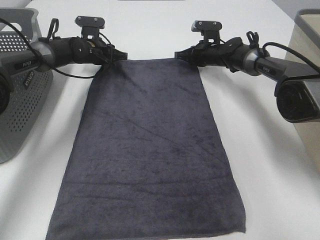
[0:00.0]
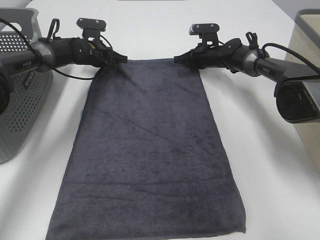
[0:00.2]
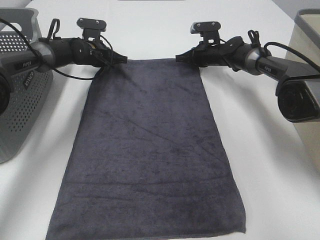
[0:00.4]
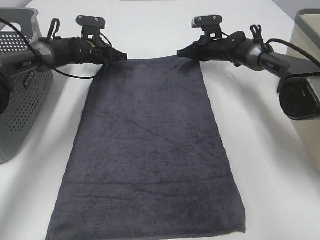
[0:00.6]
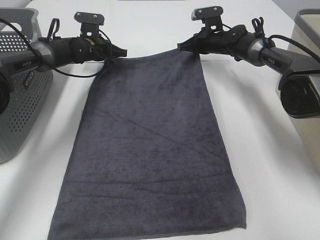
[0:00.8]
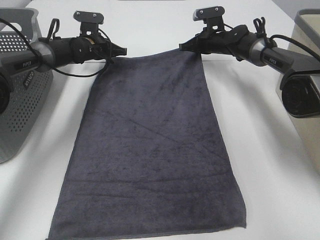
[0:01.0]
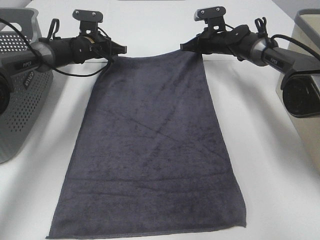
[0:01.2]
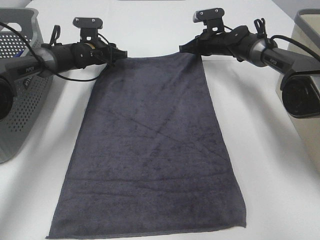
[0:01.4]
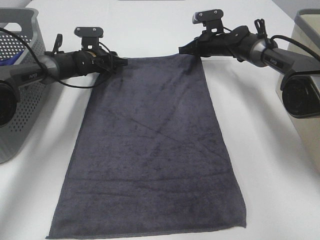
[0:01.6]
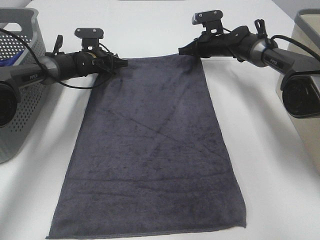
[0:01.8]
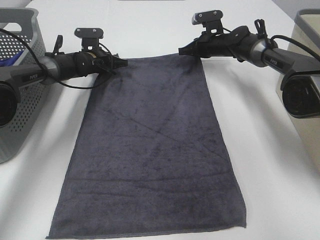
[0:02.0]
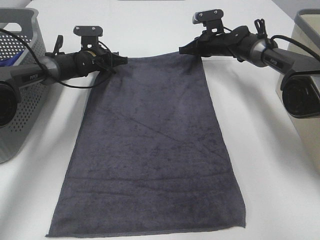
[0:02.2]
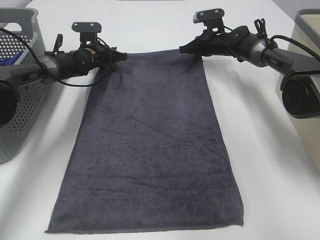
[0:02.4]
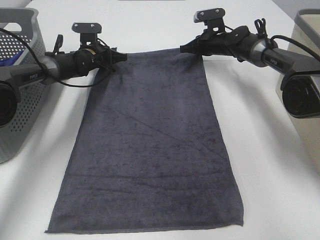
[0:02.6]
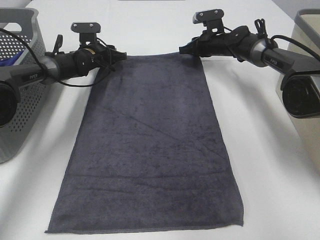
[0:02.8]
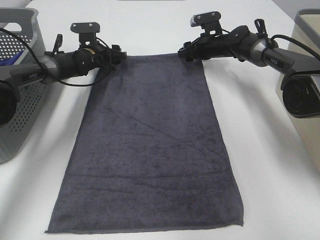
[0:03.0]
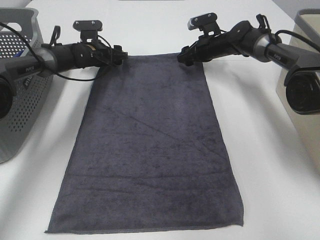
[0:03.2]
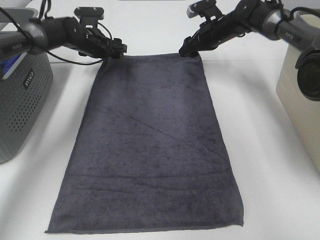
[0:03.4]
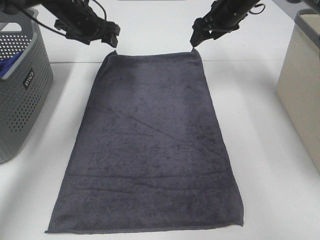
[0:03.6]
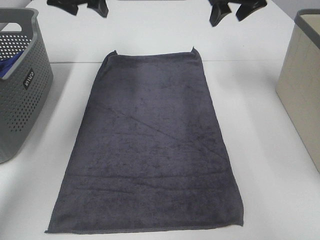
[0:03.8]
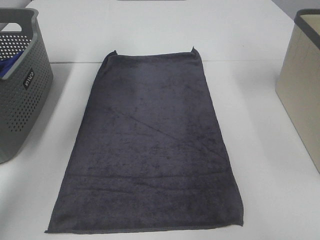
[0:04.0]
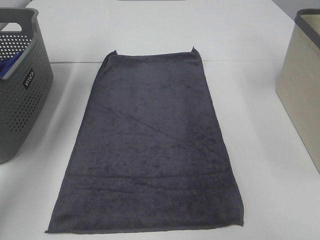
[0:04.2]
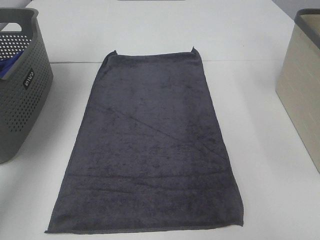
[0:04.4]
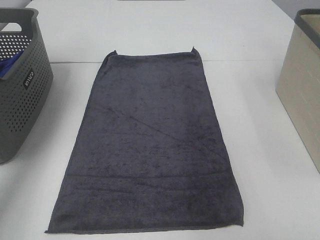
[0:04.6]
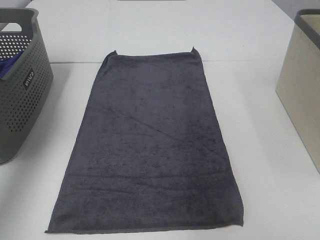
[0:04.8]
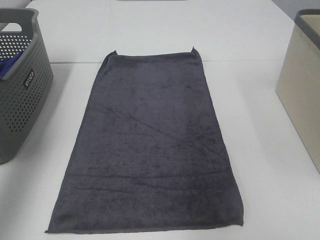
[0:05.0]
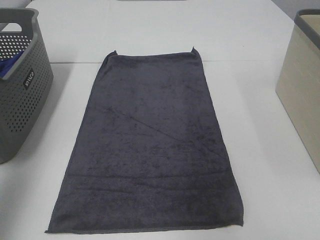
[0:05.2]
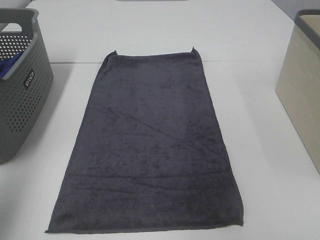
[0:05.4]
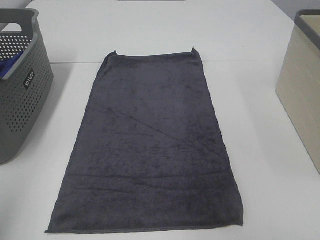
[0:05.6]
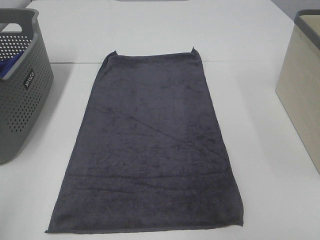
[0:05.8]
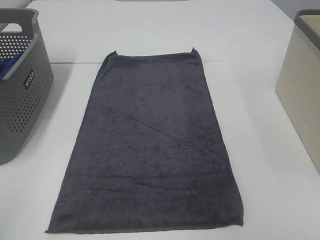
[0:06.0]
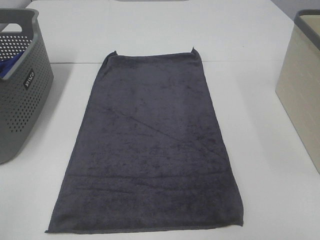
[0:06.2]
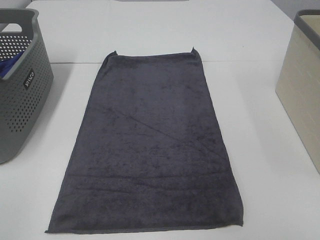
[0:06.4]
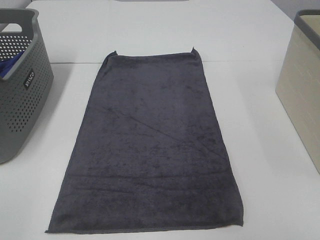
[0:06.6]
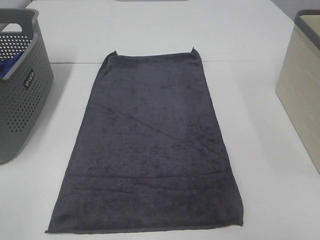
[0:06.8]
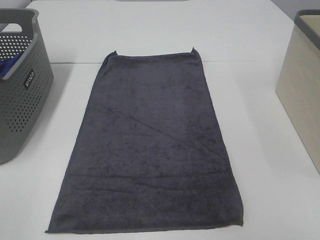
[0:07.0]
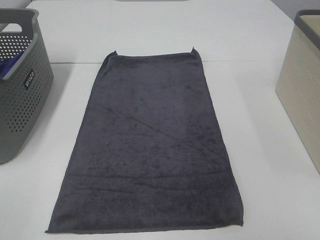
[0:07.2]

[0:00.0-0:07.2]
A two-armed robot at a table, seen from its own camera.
Task of the whole recording: Remove the towel and place it.
0:00.0 to 0:01.4: The grippers make only small movements.
0:01.4 to 0:02.8: The right gripper opens up. The left gripper closes, then reopens.
0:02.8 to 0:04.4: The two grippers go approximately 35 cm upward and backward. The right gripper opens up.
0:04.4 to 0:05.8: The left gripper moves backward, approximately 40 cm.

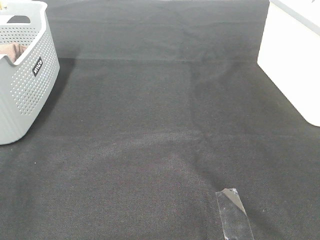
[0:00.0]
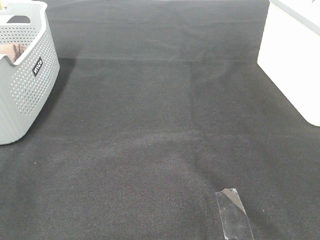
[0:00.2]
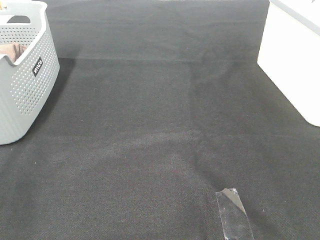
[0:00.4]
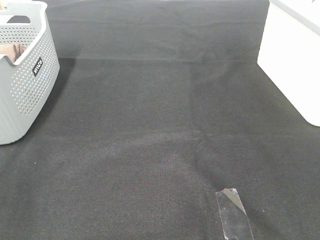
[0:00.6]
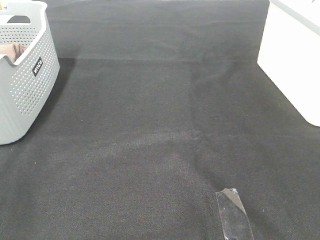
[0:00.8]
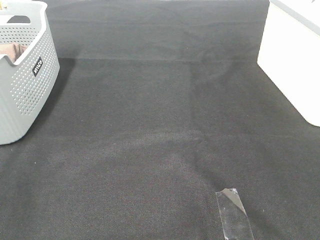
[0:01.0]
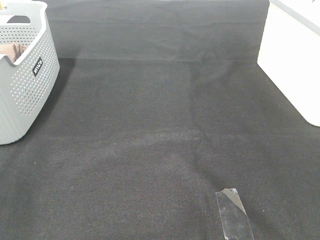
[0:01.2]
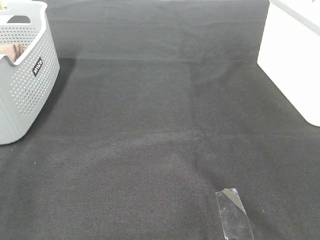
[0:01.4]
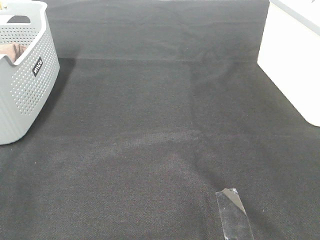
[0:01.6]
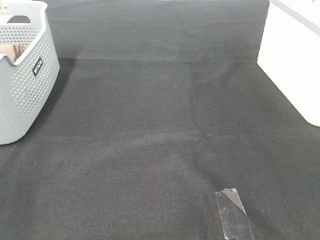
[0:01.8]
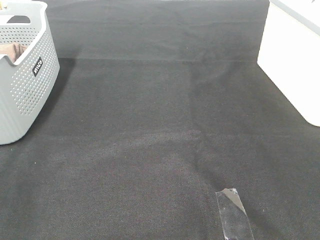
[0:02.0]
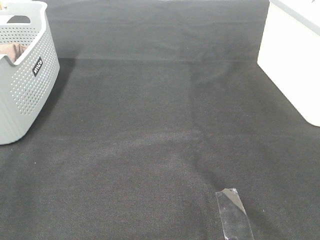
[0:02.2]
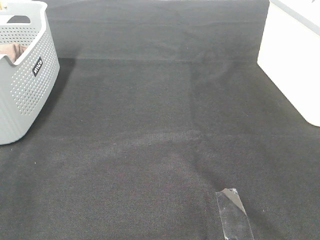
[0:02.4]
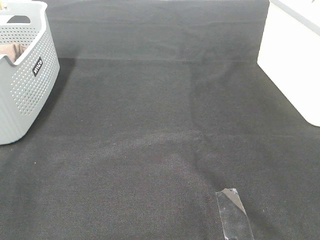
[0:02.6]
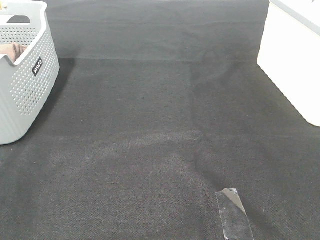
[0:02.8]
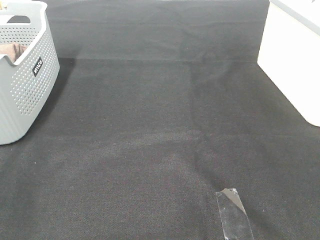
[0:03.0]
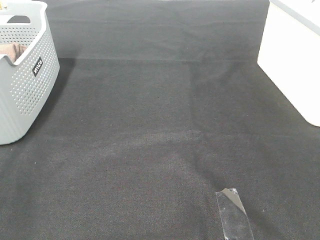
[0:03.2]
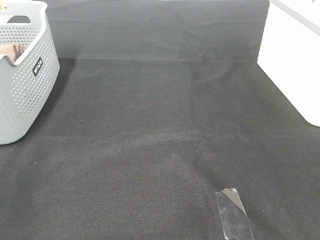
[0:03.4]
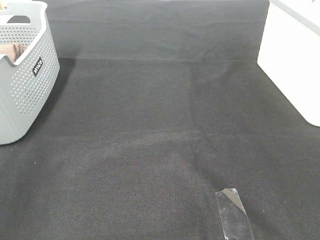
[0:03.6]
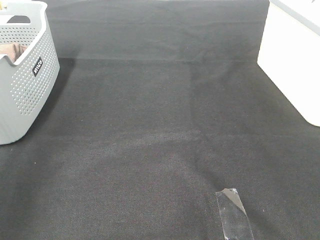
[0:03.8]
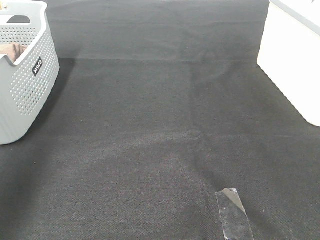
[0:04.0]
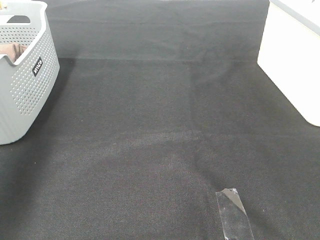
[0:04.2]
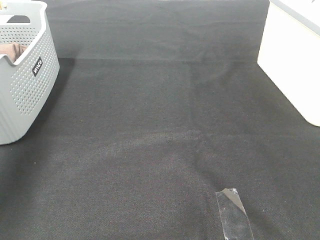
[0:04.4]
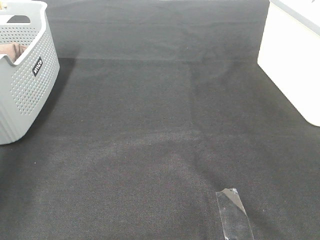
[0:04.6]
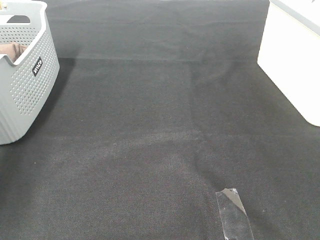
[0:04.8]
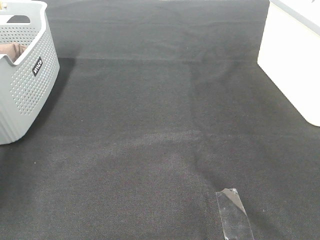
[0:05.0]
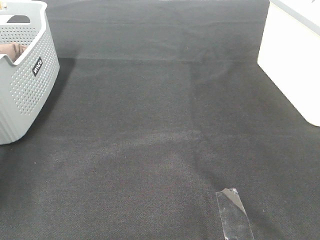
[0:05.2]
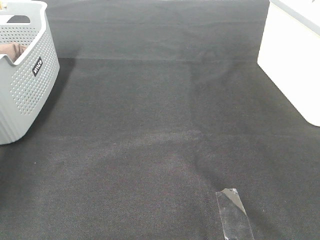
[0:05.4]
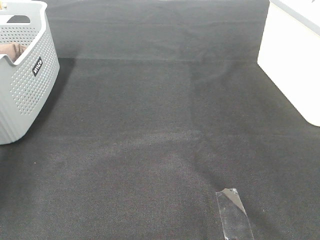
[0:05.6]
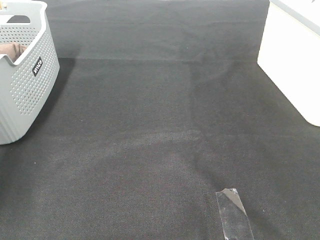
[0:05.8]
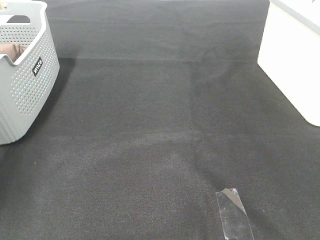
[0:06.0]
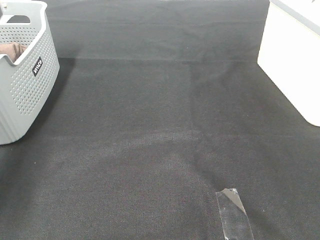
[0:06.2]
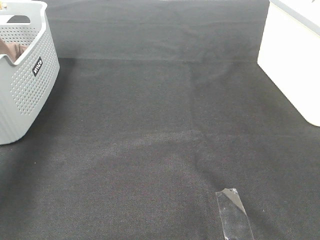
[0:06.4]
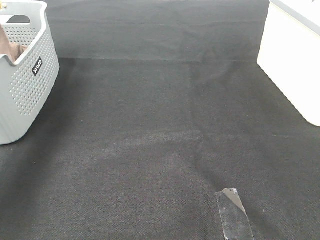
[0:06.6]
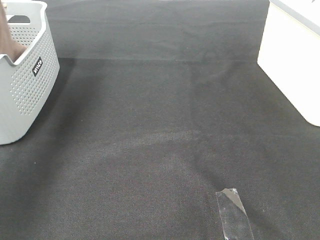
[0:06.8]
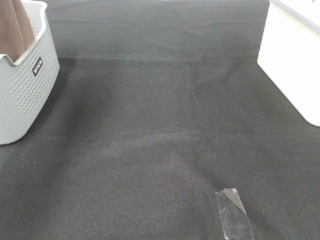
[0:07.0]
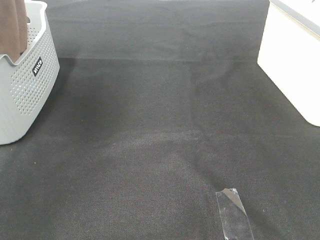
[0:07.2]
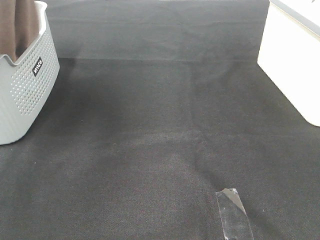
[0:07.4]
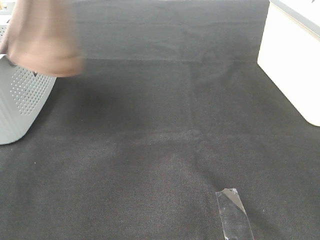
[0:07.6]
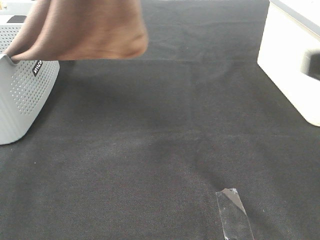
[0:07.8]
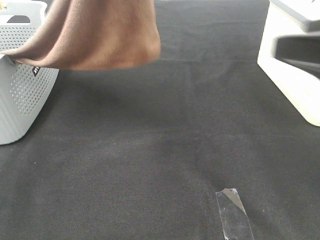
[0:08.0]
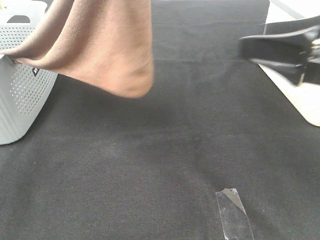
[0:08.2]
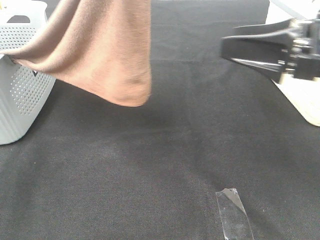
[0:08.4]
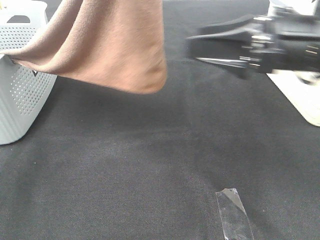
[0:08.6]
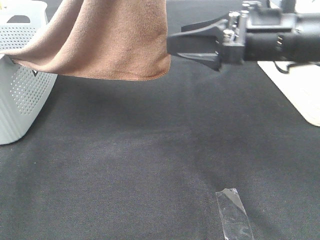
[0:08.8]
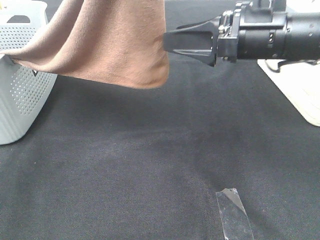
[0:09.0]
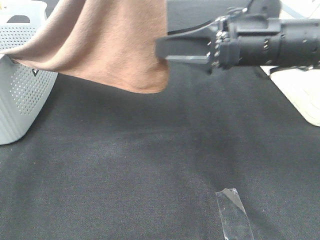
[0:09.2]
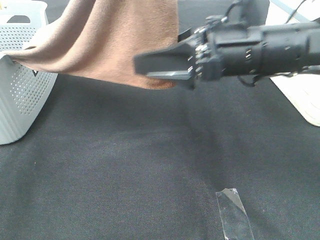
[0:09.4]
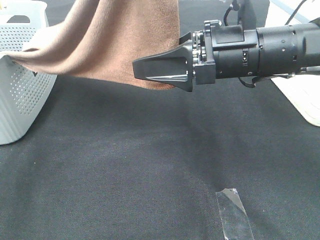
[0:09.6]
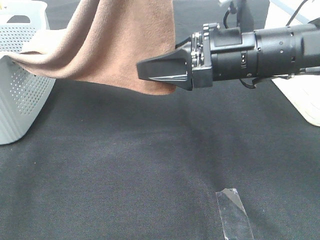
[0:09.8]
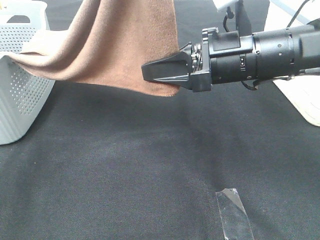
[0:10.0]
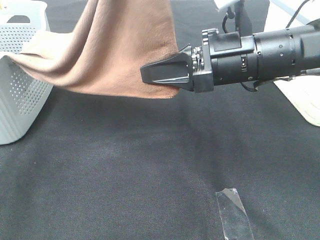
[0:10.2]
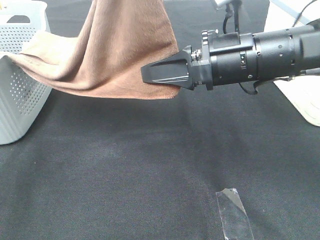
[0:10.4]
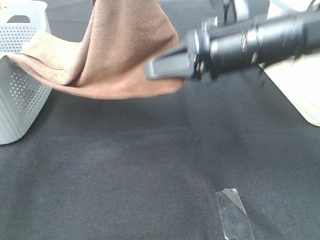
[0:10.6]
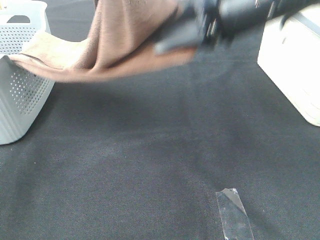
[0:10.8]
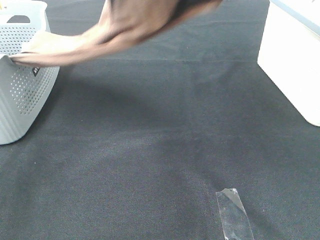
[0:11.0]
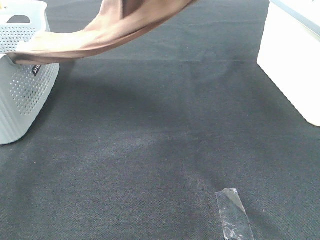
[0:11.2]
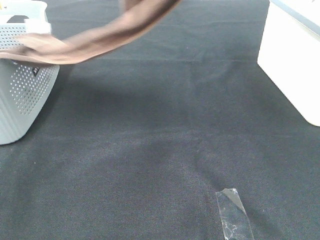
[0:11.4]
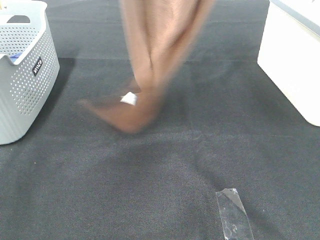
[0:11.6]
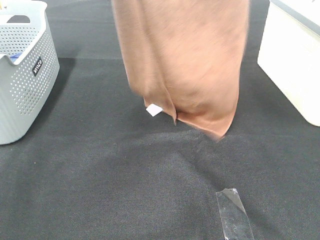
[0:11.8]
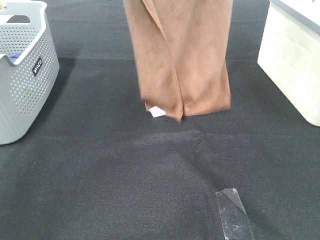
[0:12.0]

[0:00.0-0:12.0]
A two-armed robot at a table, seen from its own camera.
Task of the whole recording: Remove the towel and place it.
Step, 0:07.2 to 0:10.2: Right hand: grab a corner of the brown towel and straighten it.
0:00.0 to 0:03.0: The two grippers keep their place.
0:03.0 to 0:04.4: The left gripper moves forward, approximately 35 cm.
0:06.0 to 0:07.6: The left gripper is displaced upward, to the right and backward by some 40 cm, while the right gripper heads forward, covering about 5 cm.
0:07.6 to 0:09.0: The right gripper is displaced forward and to the left by roughly 25 cm. Meanwhile the left gripper moves to the right and backward, approximately 10 cm.
0:09.0 to 0:10.4: The right gripper closes its fingers.
0:10.4 to 0:12.0: The left gripper heads forward and to the left, covering about 15 cm; the right gripper moves upward, about 30 cm.

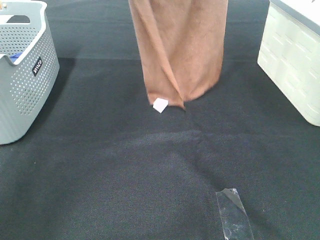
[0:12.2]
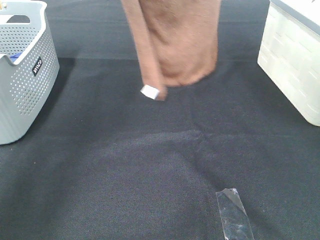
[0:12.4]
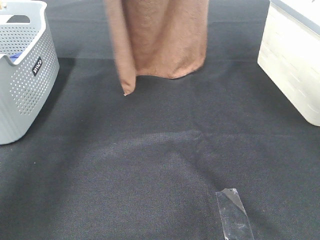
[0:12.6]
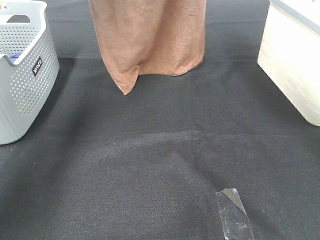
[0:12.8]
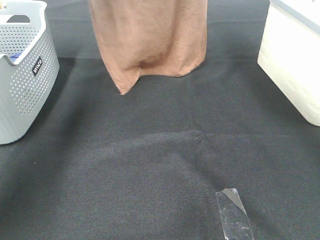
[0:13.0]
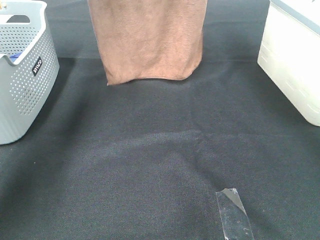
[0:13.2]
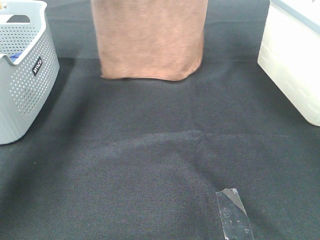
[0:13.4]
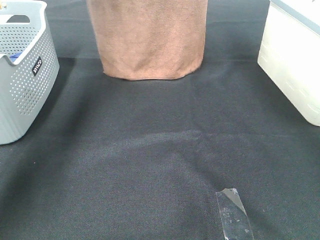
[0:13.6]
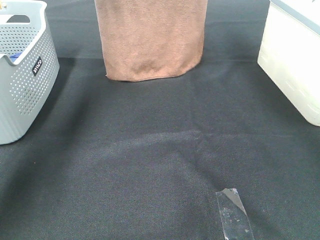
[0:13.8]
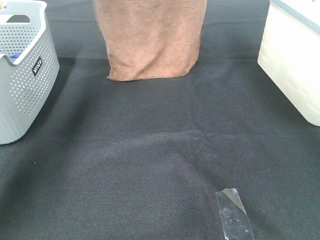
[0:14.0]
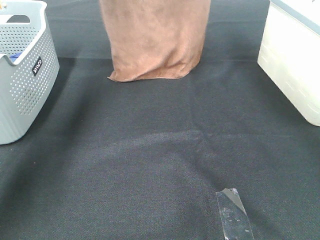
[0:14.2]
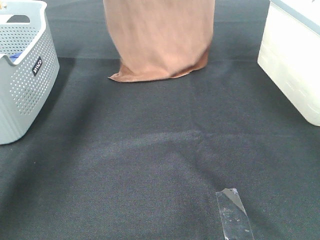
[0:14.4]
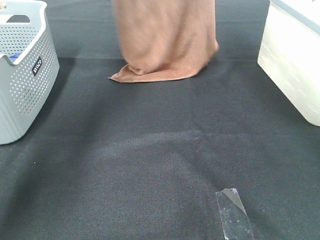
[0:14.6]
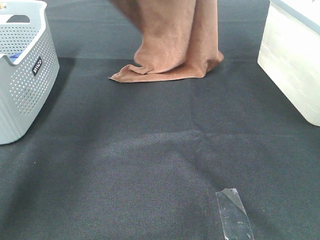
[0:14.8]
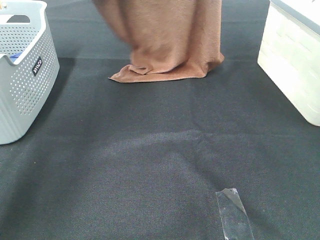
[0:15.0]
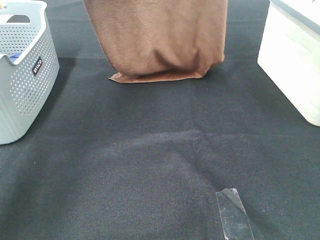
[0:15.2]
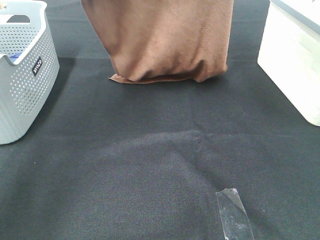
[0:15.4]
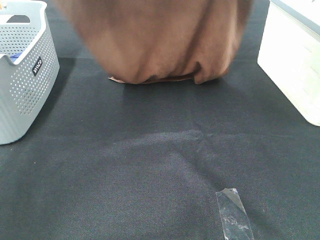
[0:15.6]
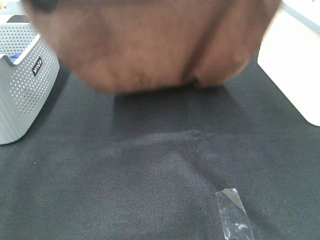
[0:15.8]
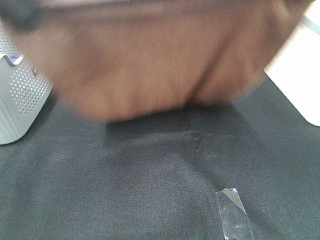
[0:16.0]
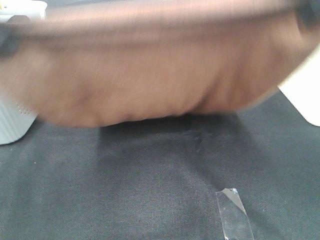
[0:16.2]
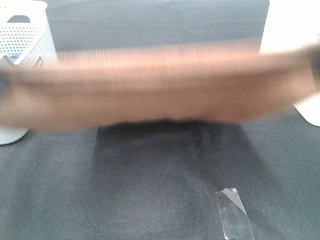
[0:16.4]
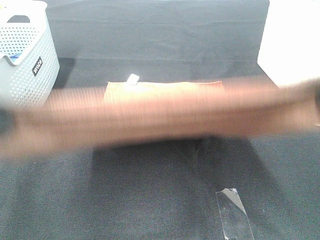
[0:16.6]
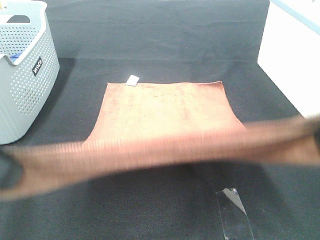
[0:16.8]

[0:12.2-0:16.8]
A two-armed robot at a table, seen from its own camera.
Task of the whole recording: Remove the towel and place it.
Step, 0:12.2 to 0:15.0: Left hand: spread the brown towel flat on the table.
Step, 0:12.2 to 0:15.0: Right hand: spread the brown towel flat on the table.
0:12.2 to 0:13.8: The right gripper goes about 10 cm forward; the left gripper moves forward and downward, approximately 15 cm.
0:13.8 to 0:15.2: The grippers both shift backward by approximately 10 cm.
0:15.2 to 0:16.8: Both grippers move backward and downward, some 30 cm.
